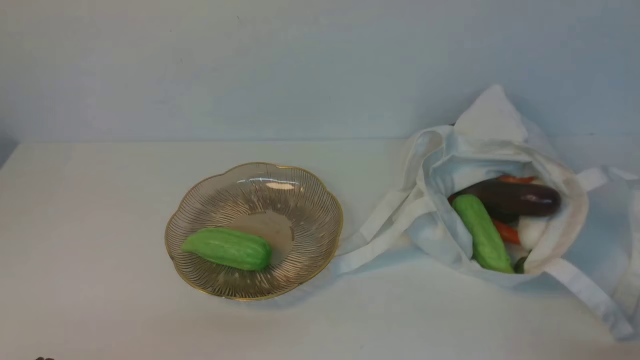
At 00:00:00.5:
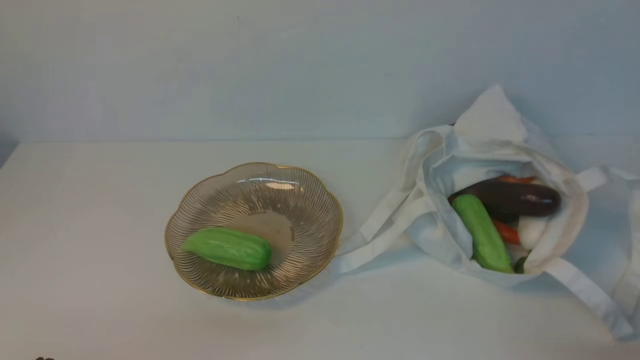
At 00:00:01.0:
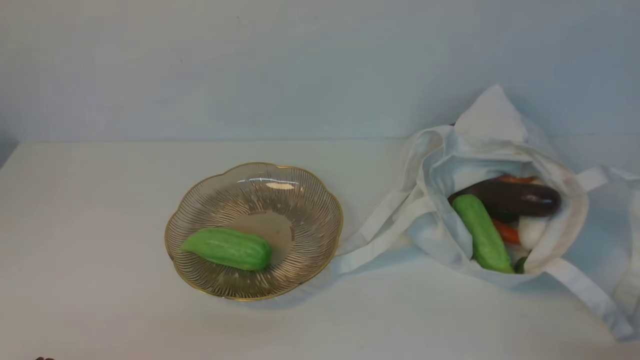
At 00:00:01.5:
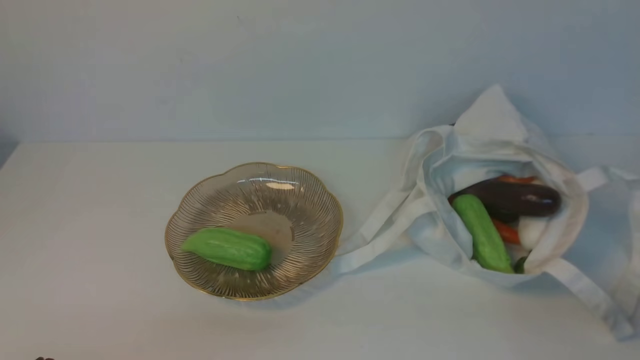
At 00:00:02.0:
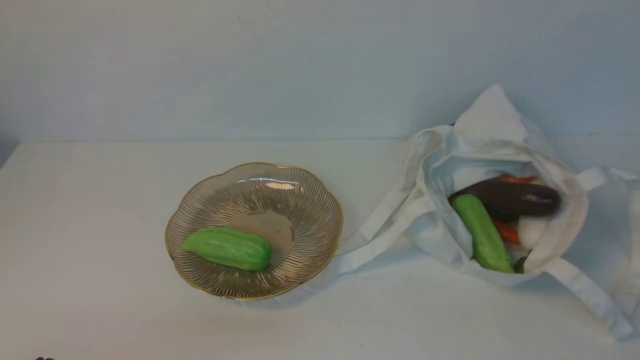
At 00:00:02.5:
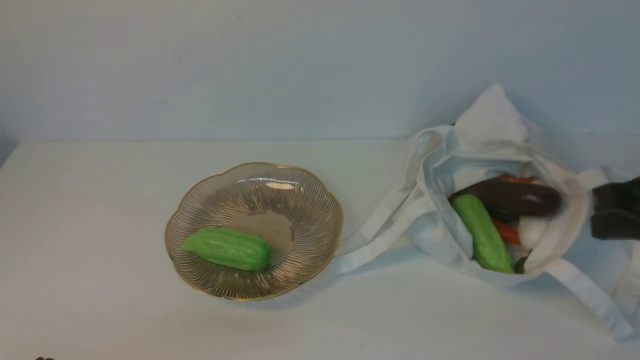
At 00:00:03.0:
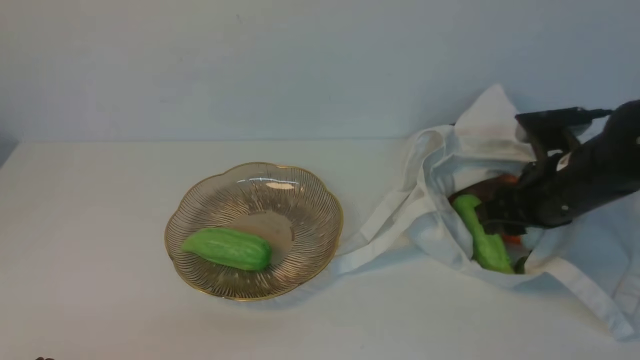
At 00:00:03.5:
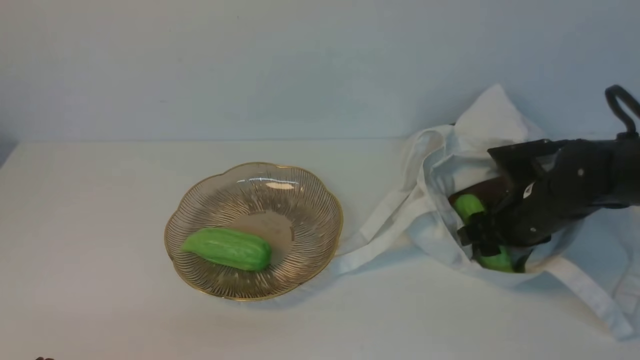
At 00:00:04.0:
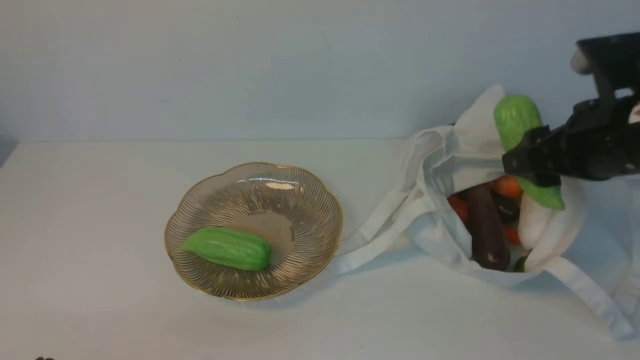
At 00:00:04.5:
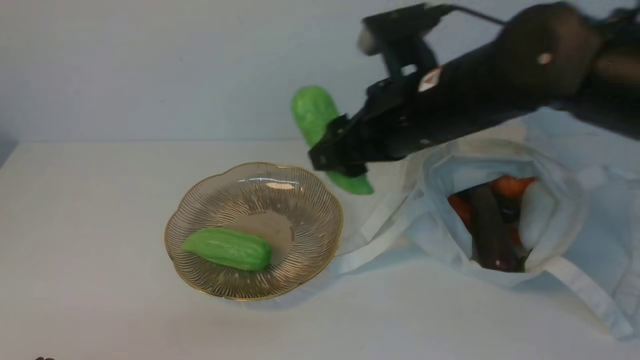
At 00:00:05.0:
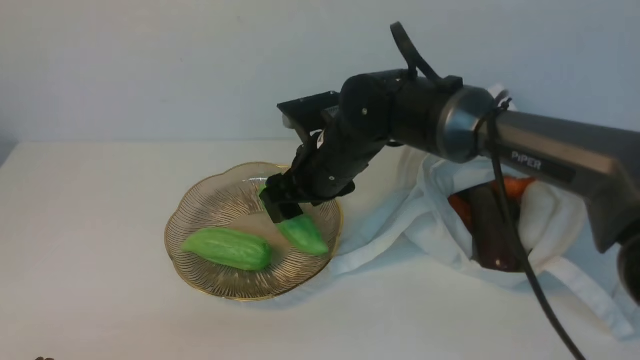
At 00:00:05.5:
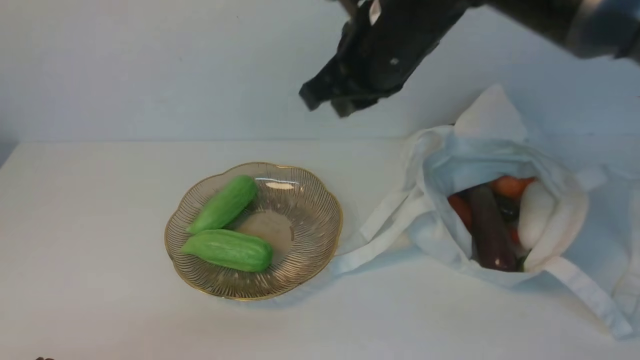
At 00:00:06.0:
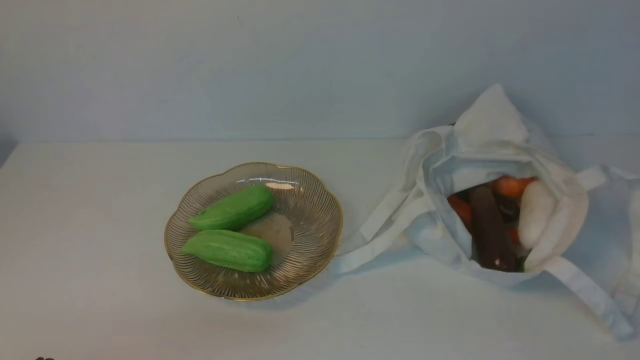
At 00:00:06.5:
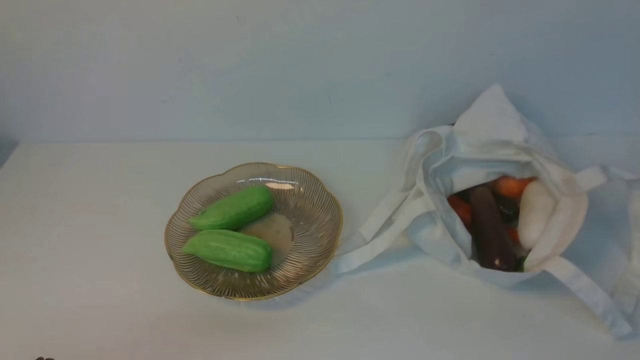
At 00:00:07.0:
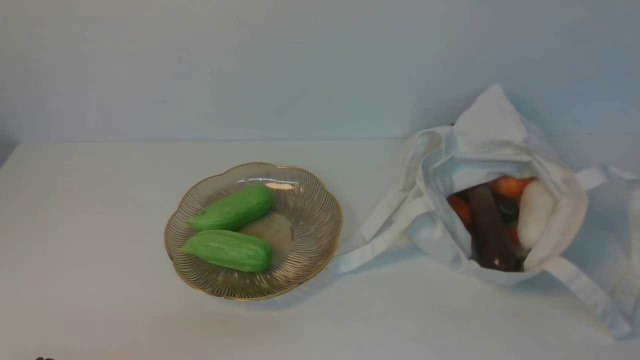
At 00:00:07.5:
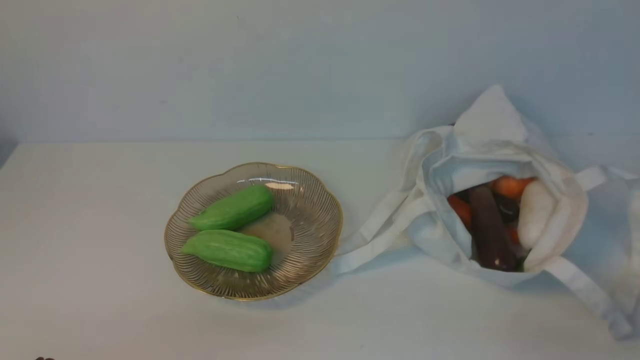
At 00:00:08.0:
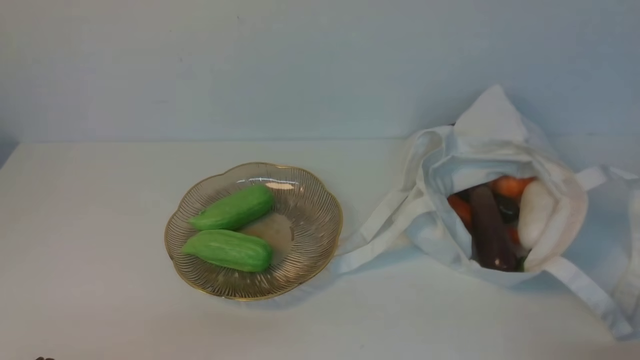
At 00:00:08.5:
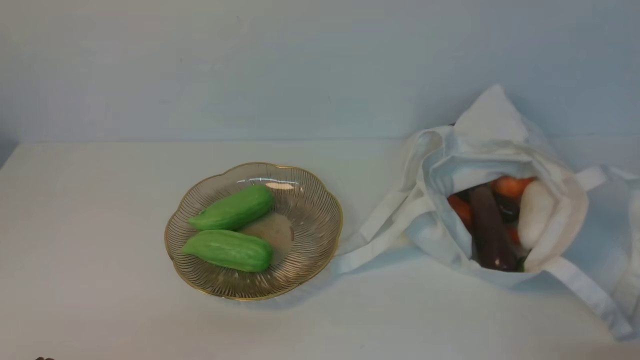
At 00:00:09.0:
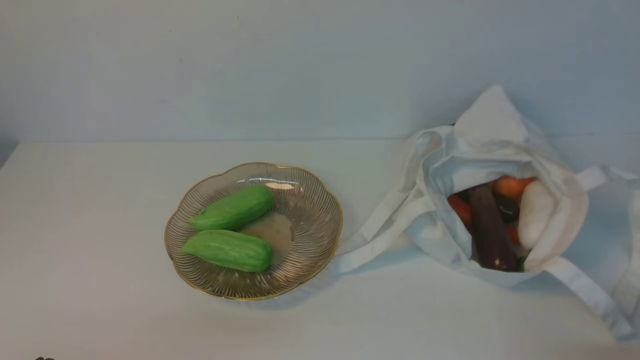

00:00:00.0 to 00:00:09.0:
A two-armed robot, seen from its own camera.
Task of the whole recording: take vegetables from cloth bag on white table place on plate.
Step, 00:00:00.0 to 00:00:03.0: Grasp the bitter melon with right gripper.
Step, 00:00:03.5 to 00:00:05.0: Place the bitter melon on the plate with right gripper.
00:00:02.0 to 00:00:04.5: The right gripper travels forward and to the left by some 35 cm, and opens its fingers.
00:00:04.5 to 00:00:07.0: The right gripper heads backward and to the right, covering approximately 35 cm, and closes.
